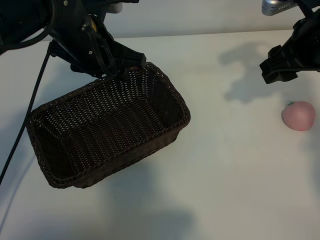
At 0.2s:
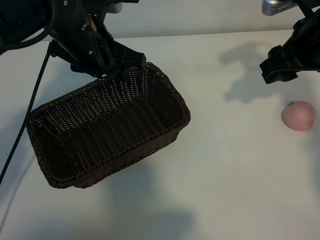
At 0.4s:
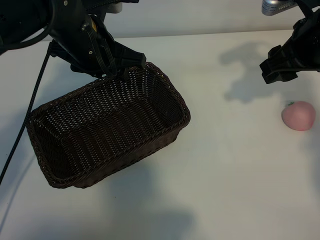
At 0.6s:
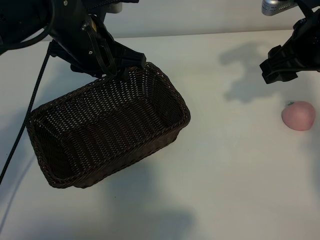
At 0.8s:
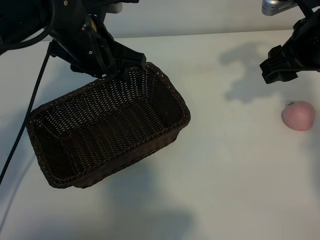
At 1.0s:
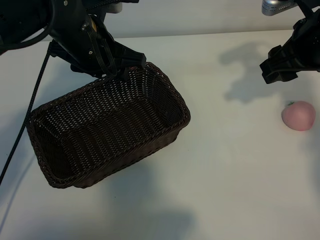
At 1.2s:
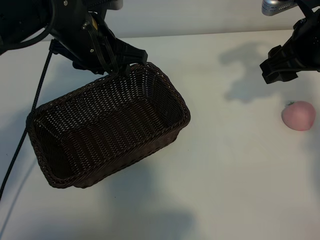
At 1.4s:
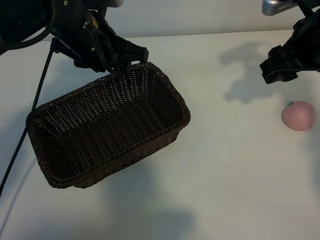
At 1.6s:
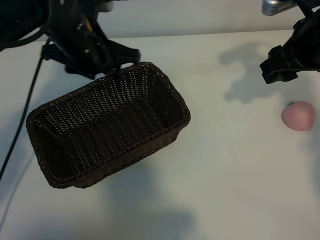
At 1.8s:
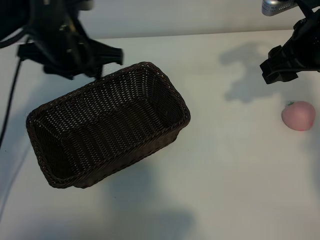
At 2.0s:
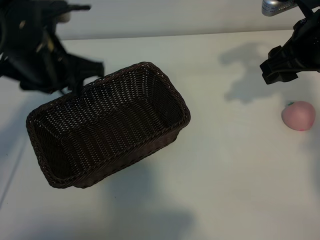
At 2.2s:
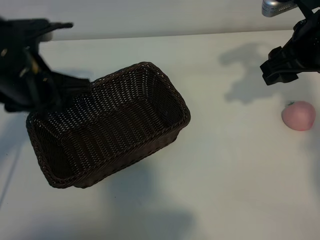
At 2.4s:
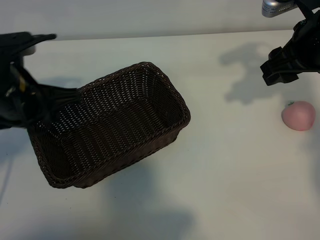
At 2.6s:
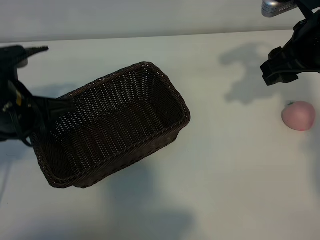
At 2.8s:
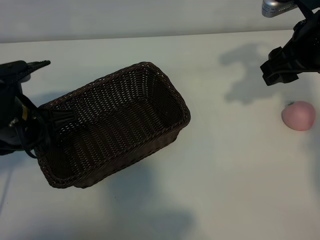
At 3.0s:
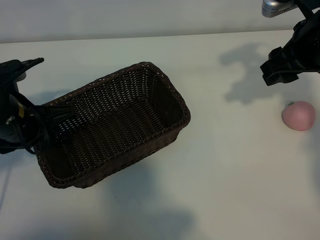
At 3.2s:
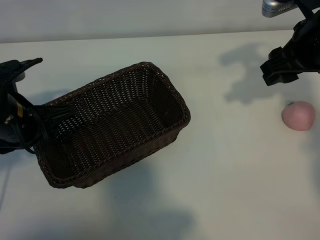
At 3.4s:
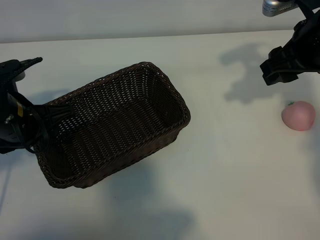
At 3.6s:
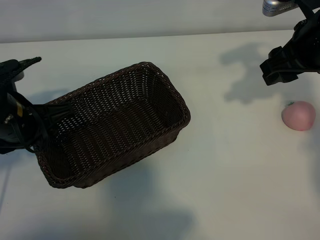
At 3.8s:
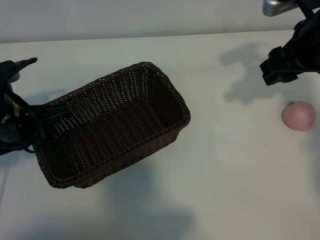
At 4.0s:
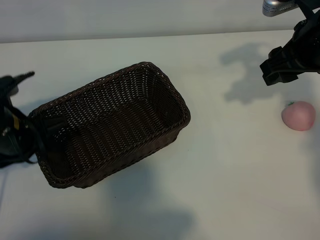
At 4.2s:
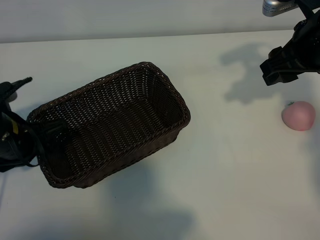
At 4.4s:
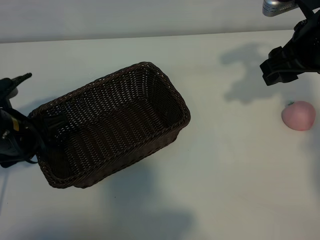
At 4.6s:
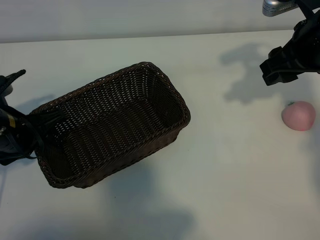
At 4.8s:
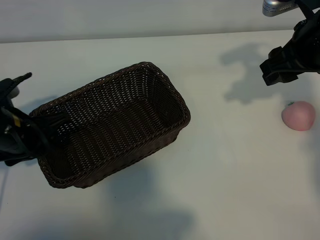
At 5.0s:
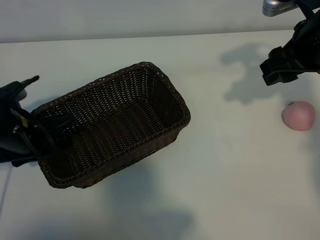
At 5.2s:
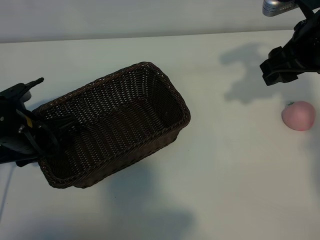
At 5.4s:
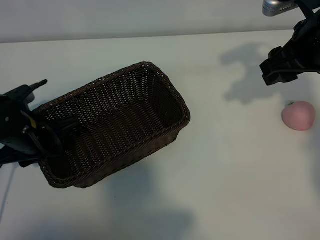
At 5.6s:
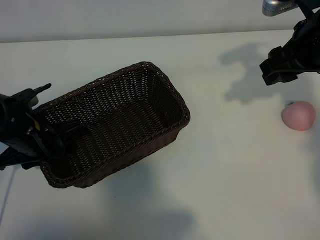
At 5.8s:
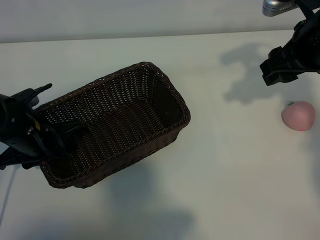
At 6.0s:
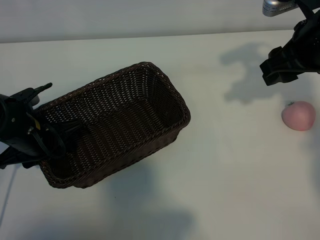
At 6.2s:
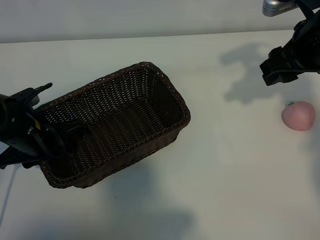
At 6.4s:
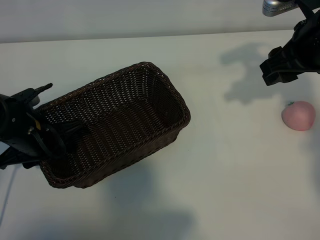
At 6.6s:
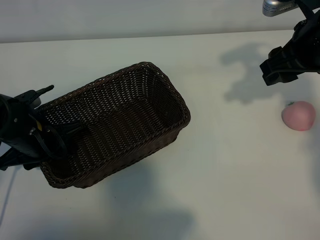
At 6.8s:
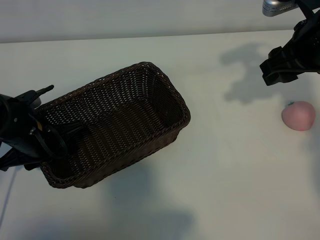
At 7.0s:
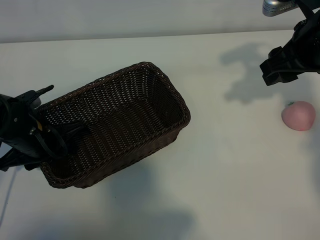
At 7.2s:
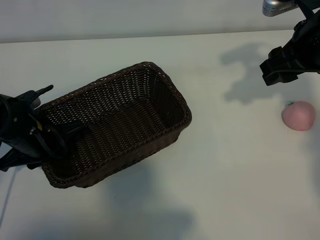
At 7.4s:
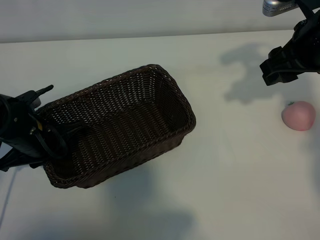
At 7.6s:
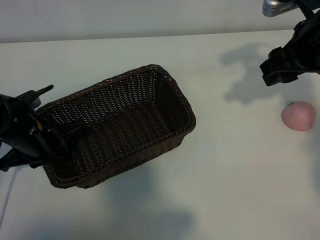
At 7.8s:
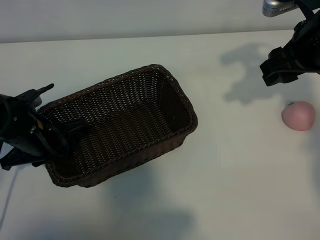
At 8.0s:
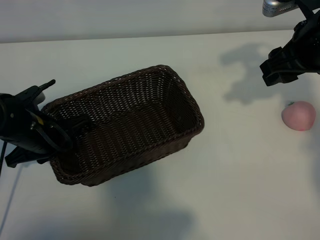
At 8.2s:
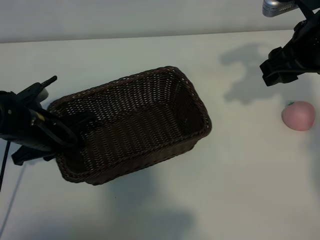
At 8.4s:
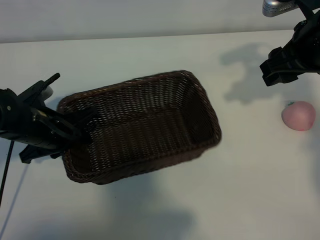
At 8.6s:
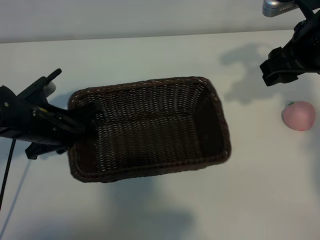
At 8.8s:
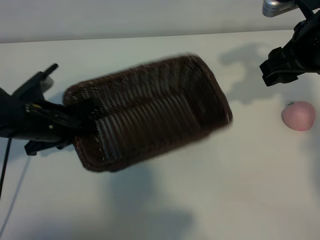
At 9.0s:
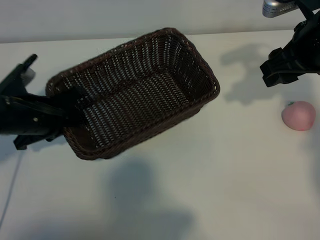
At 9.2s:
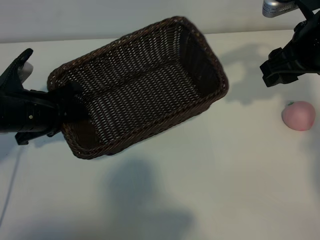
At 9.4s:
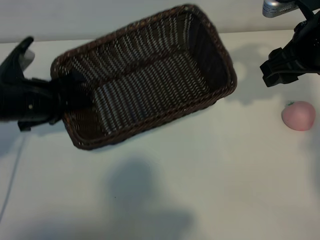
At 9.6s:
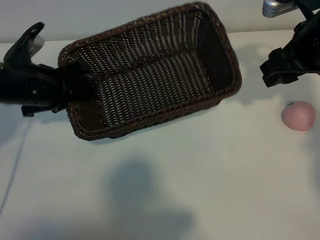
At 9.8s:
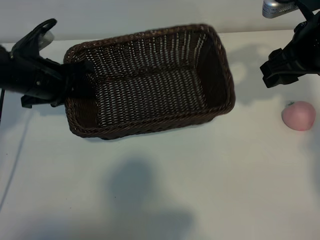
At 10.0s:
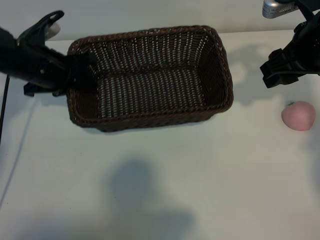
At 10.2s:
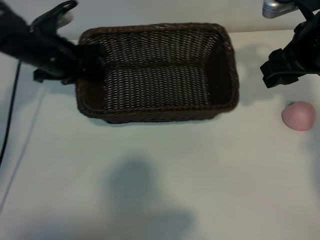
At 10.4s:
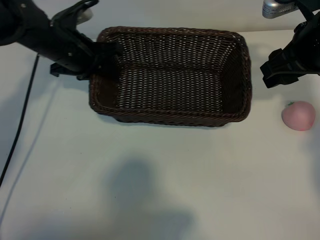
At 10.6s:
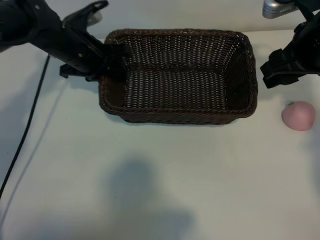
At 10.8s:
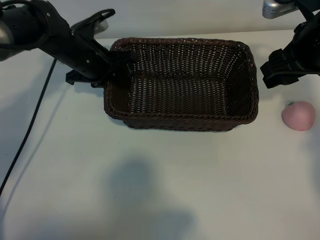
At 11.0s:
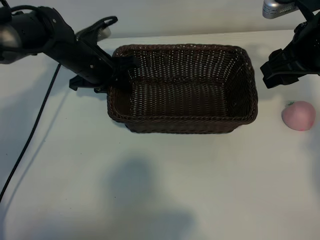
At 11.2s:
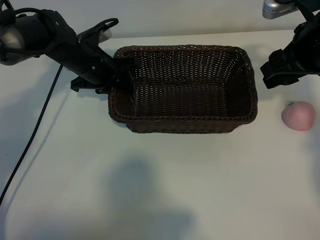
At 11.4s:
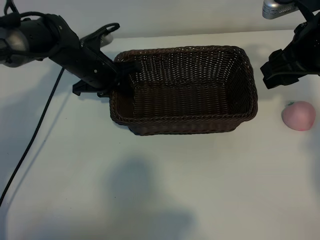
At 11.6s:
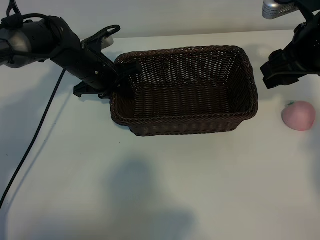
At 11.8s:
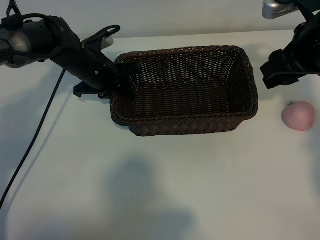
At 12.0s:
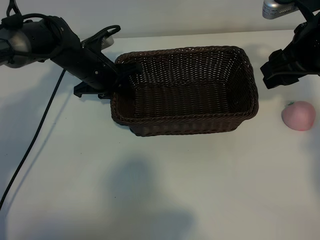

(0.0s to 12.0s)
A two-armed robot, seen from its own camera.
Task of the whole recording: pick up the peach and put it into the basket.
Step, 1.4s - 7.6s: Grasp the basket with left gripper.

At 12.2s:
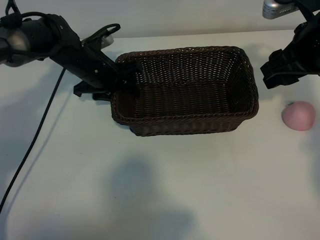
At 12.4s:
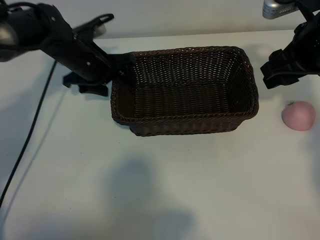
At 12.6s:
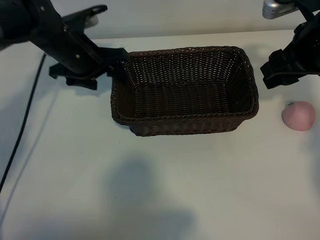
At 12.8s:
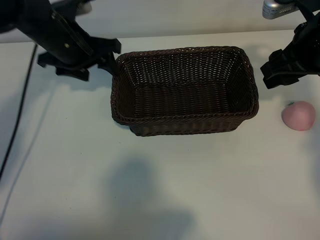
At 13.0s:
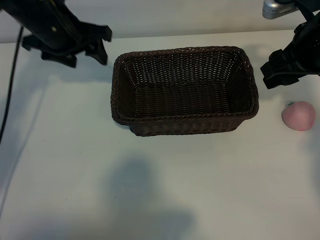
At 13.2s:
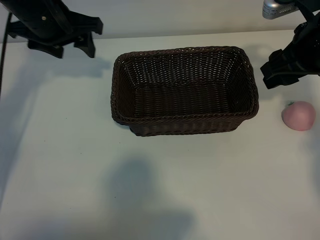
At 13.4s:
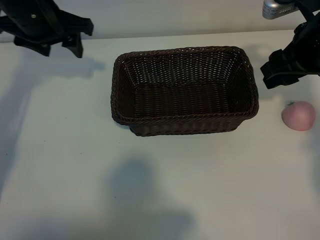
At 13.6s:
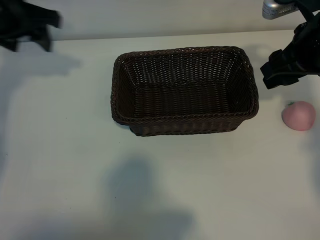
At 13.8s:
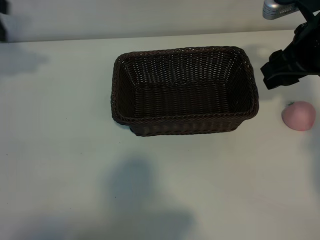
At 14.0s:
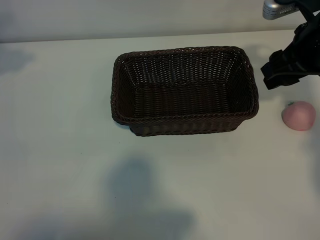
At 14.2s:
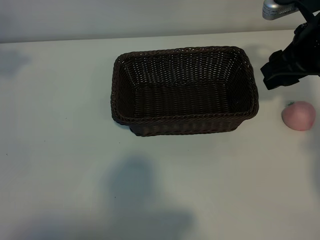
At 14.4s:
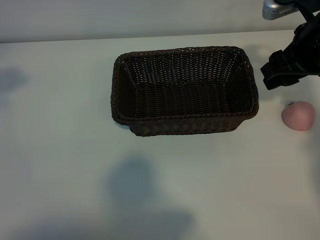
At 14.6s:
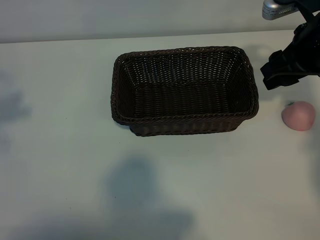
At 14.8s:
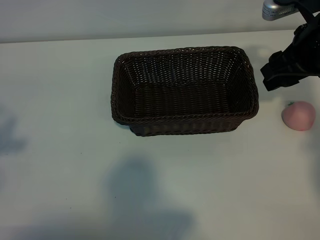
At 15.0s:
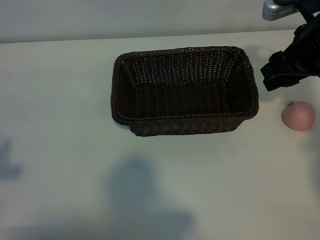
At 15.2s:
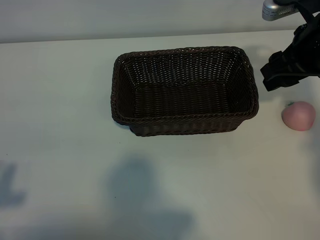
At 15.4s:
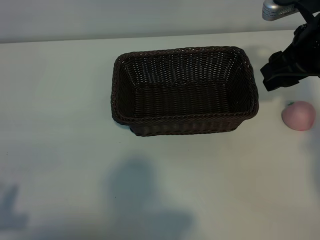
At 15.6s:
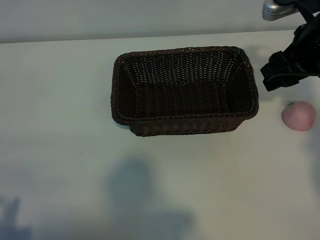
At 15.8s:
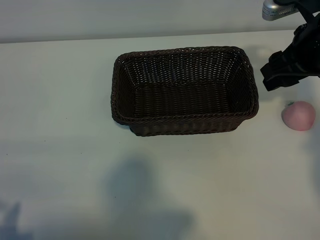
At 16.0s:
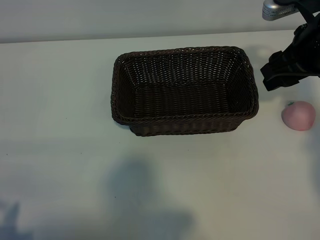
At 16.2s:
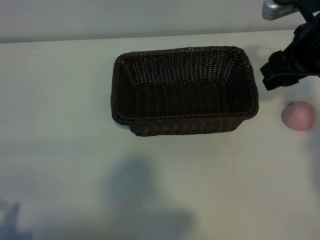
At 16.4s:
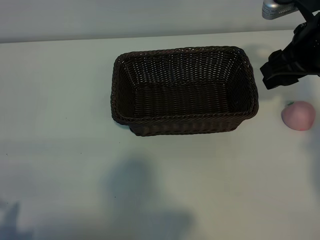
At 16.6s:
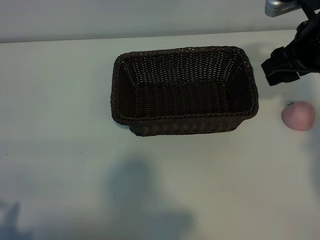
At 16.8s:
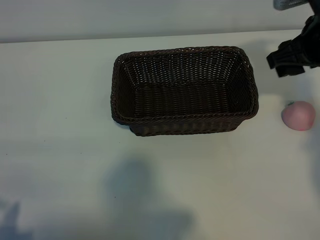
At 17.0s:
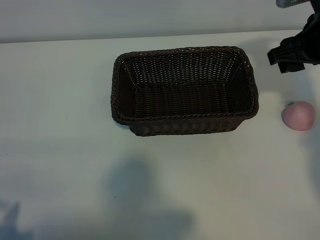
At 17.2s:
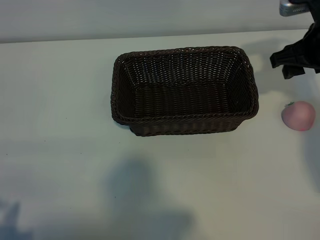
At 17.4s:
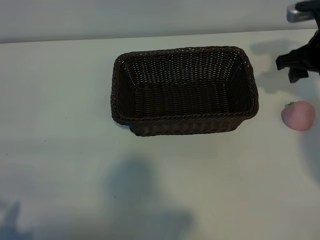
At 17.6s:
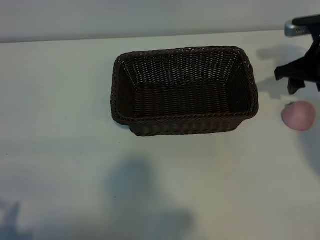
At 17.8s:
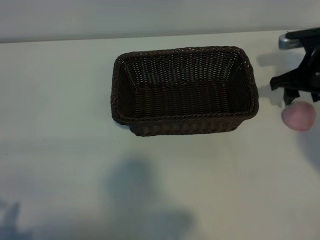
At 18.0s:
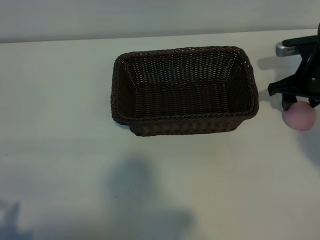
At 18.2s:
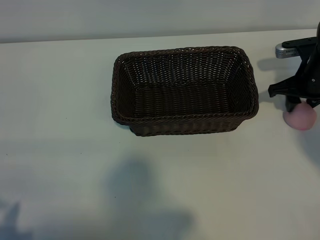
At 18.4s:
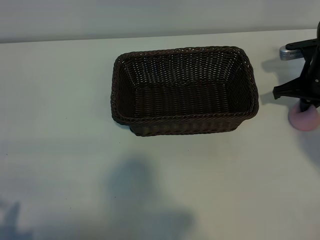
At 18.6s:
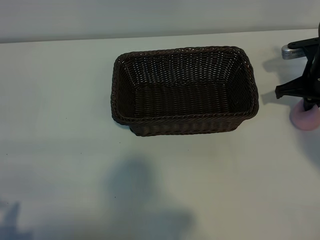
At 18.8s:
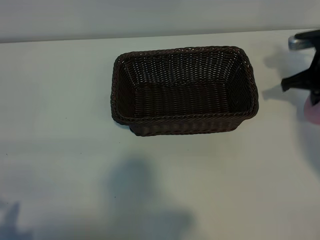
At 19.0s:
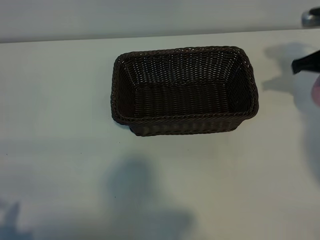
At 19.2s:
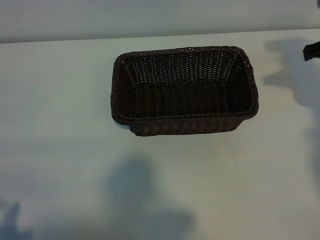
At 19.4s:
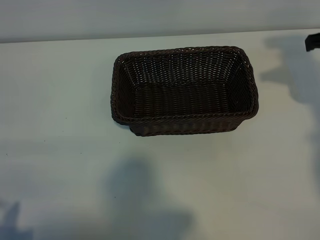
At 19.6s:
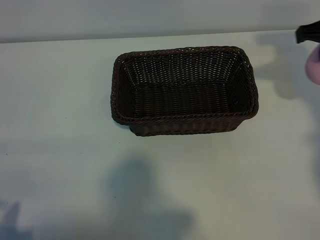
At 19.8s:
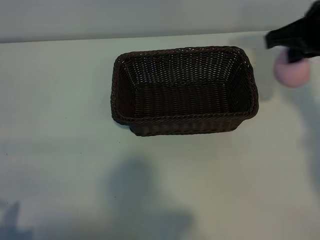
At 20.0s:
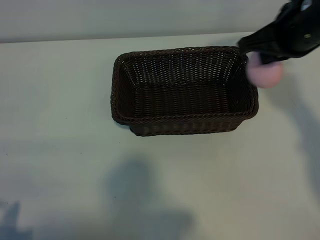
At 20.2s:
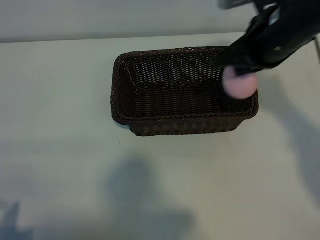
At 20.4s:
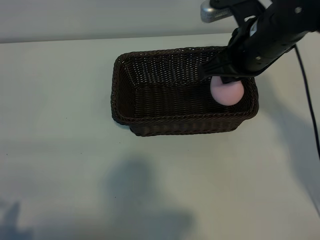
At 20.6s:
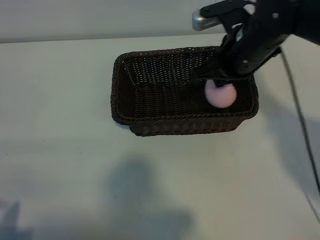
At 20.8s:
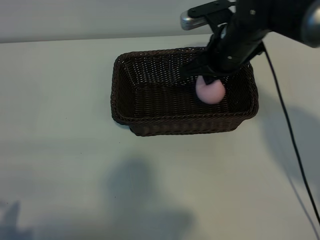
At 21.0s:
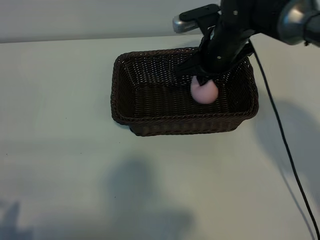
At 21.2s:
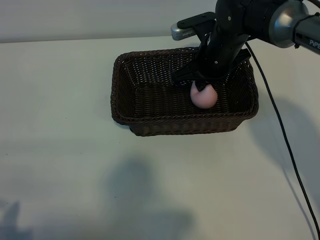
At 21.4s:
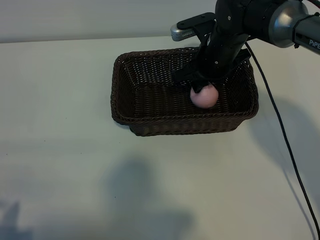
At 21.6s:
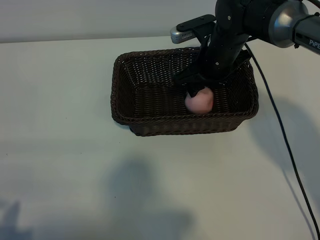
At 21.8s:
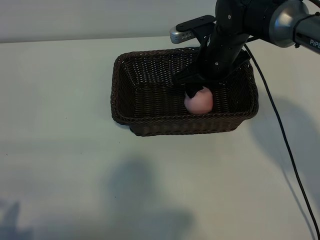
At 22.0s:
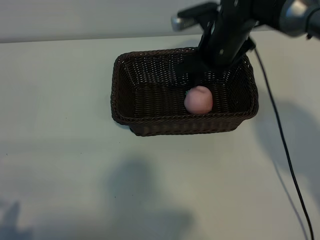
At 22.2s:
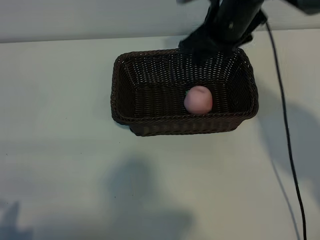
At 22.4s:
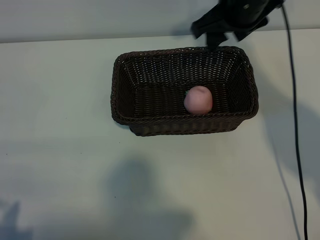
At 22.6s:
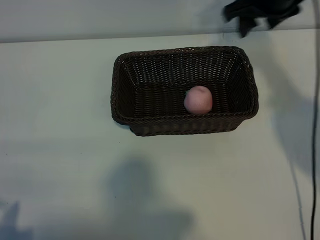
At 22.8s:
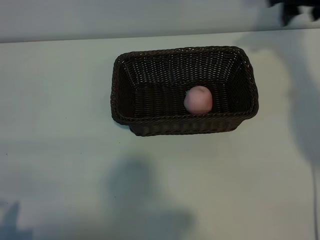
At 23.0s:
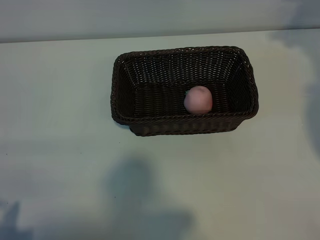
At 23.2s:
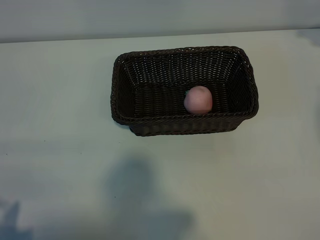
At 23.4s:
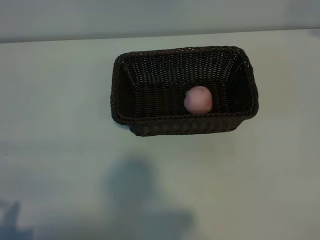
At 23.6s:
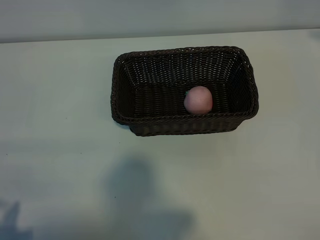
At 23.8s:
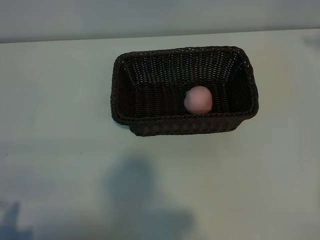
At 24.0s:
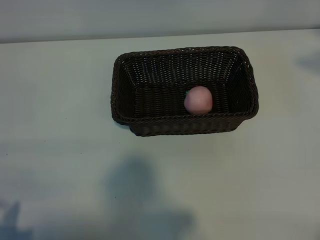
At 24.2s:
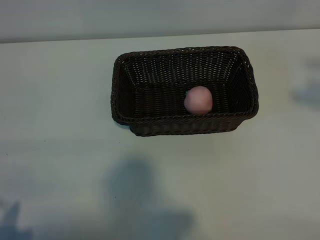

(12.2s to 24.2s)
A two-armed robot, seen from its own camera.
Task of the whole recording: pick up the peach and put it into the basket.
Step, 12.6s - 18.2s: Grasp the peach with right gripper.
Step, 18.6s - 21.6s: Place the peach in the basket with right gripper.
